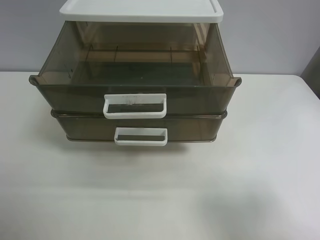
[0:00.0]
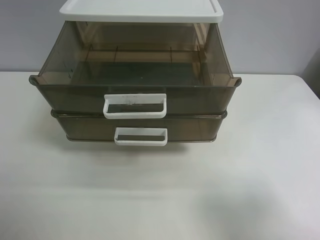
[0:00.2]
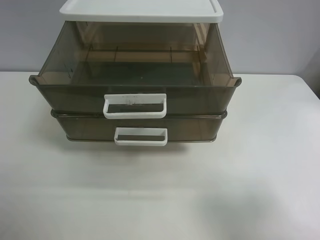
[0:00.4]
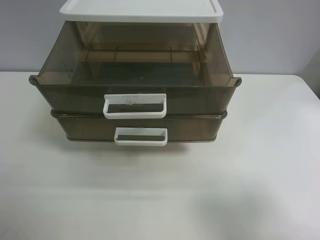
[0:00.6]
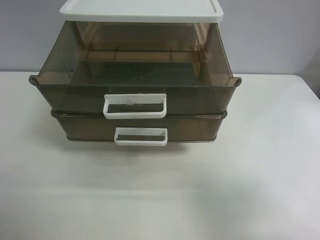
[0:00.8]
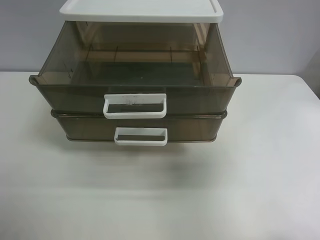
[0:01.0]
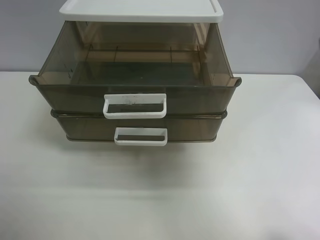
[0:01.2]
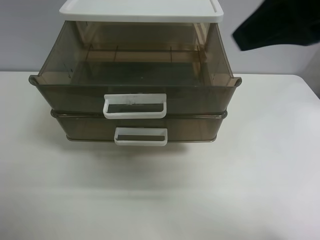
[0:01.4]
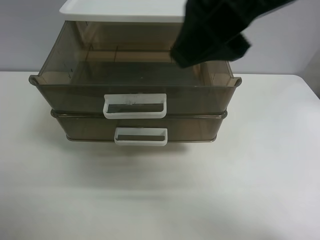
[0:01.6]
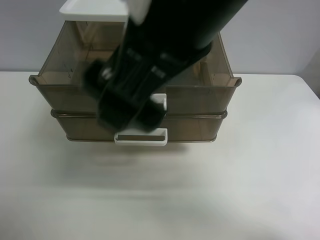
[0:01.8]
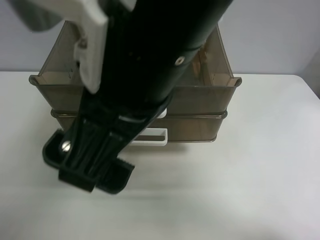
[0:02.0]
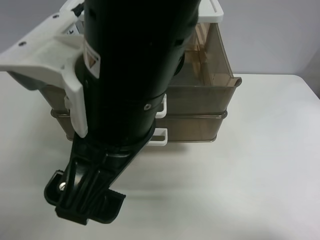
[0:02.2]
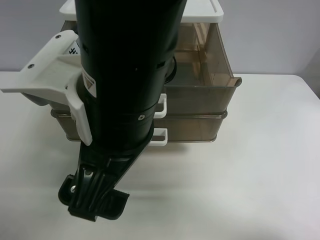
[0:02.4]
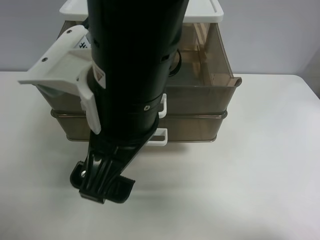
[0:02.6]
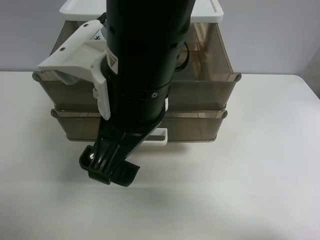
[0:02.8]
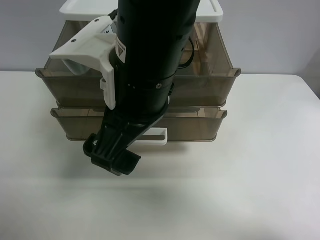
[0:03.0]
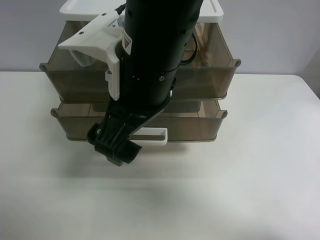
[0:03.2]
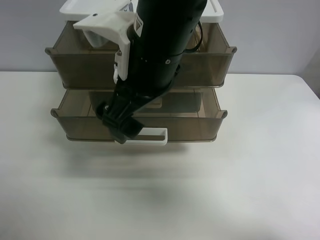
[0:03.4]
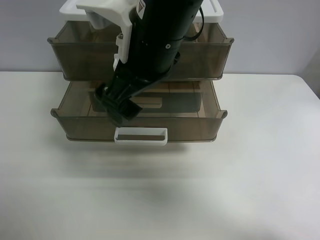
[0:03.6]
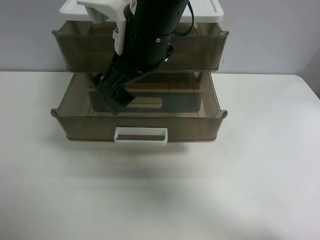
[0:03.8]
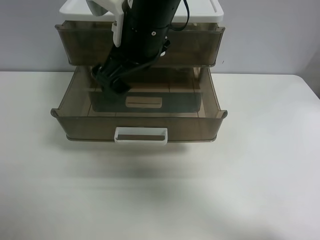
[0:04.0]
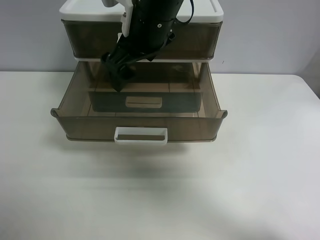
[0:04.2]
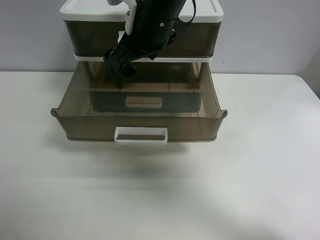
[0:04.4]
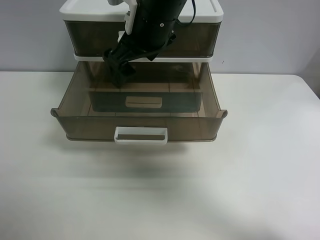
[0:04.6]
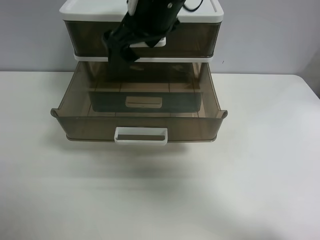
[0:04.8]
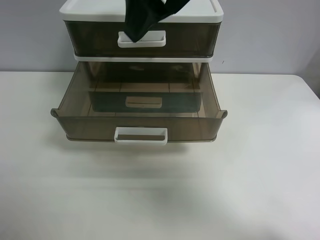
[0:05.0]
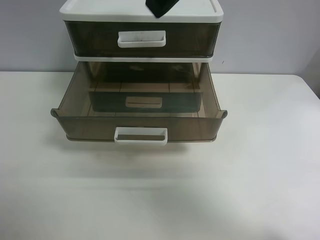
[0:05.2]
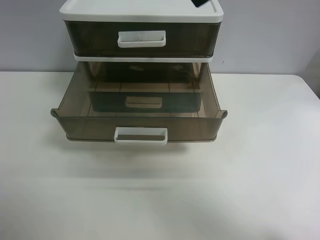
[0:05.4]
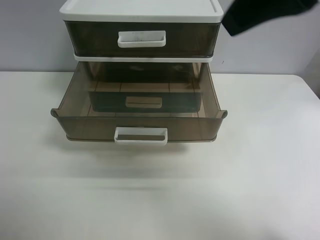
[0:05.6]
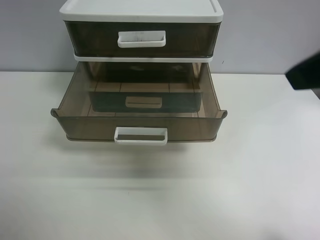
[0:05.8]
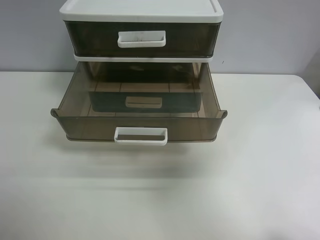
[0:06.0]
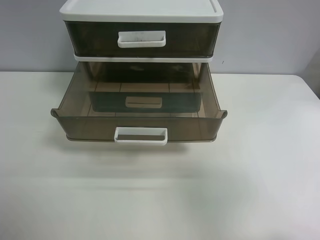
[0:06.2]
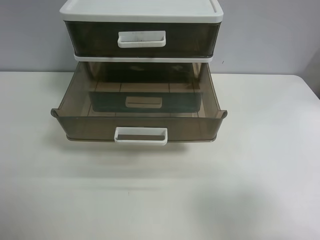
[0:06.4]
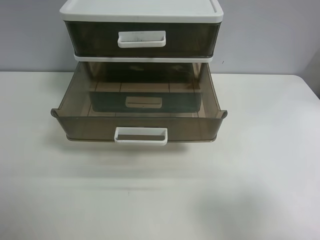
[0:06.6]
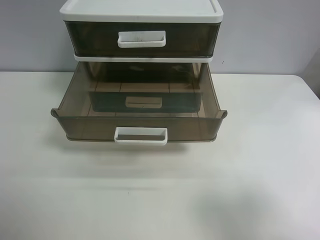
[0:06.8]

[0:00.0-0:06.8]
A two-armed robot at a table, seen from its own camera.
Task of the whole recording: close the top drawer.
Step, 0:00.0 to 0:02.6: Use the right gripper to touch the topmost layer of the storage cabinet.
Step, 0:02.8 to 0:04.4: Push the top drawer closed.
0:00.0 to 0:01.4: The right gripper travels forward, to the left and upward by roughly 25 cm.
0:01.4 to 0:02.8: The right gripper travels to the left and downward by about 20 cm.
0:02.8 to 0:04.0: The right gripper is displaced forward by about 10 cm.
0:04.0 to 0:05.4: The right gripper shifts some 20 cm to the right, upward and backward.
0:05.4 to 0:06.8: The right gripper heads backward, downward and to the right, covering some 30 cm.
